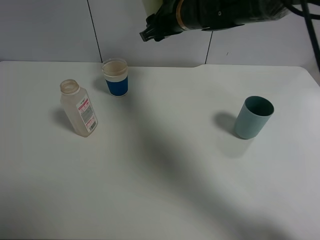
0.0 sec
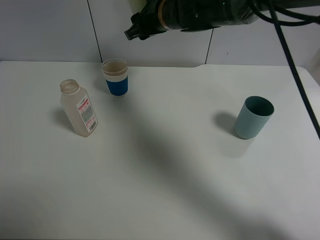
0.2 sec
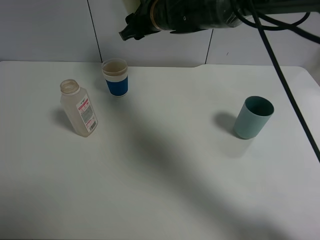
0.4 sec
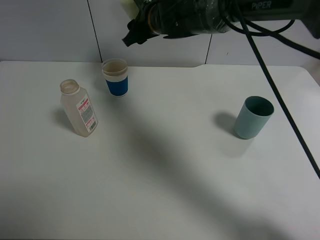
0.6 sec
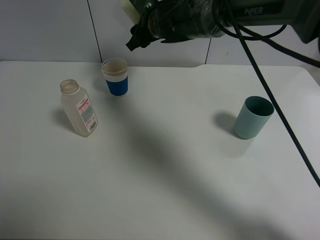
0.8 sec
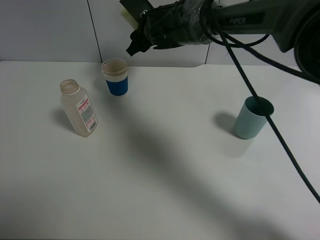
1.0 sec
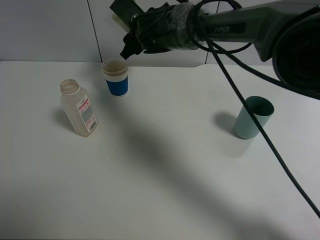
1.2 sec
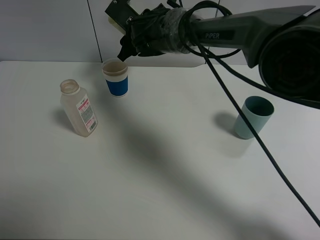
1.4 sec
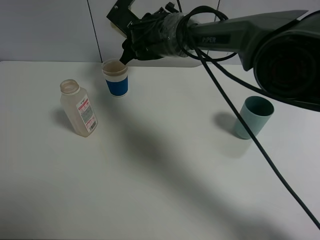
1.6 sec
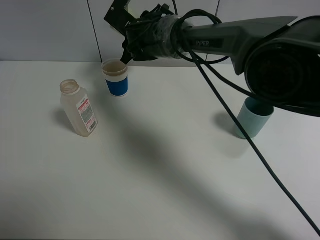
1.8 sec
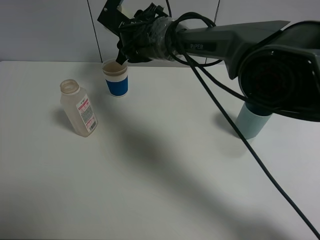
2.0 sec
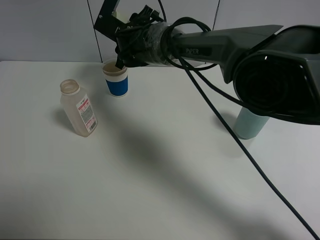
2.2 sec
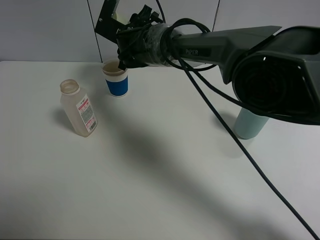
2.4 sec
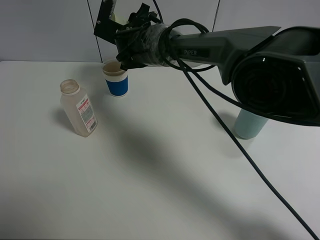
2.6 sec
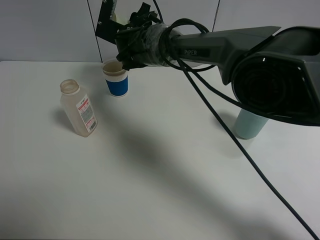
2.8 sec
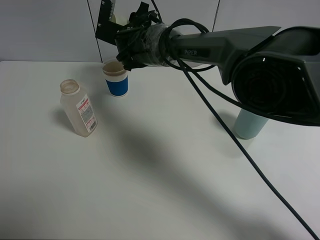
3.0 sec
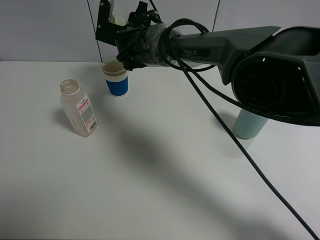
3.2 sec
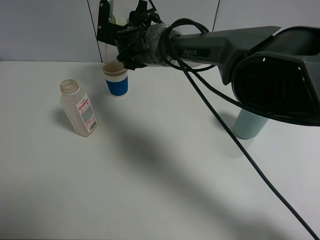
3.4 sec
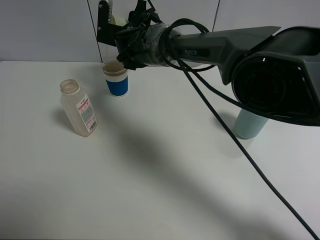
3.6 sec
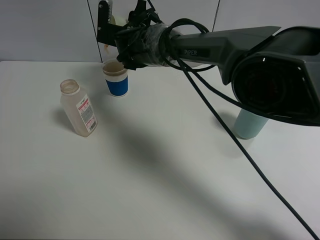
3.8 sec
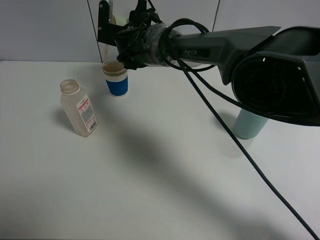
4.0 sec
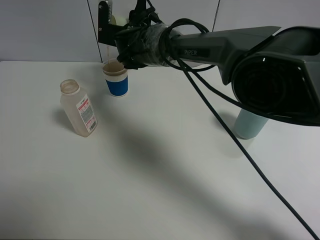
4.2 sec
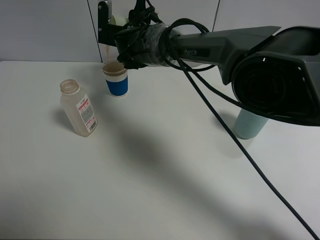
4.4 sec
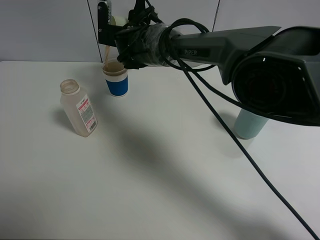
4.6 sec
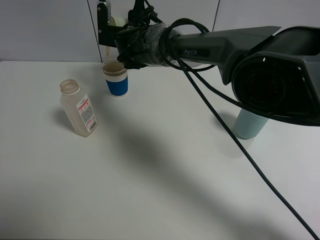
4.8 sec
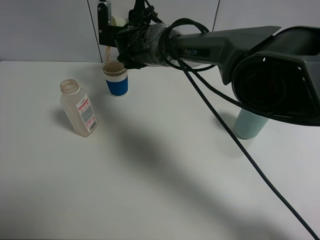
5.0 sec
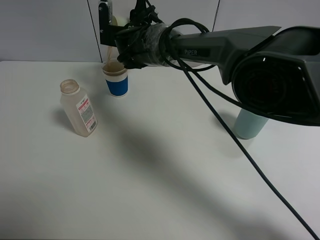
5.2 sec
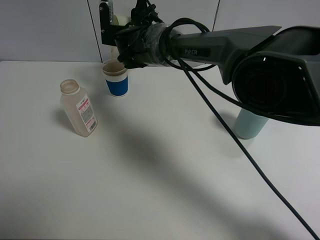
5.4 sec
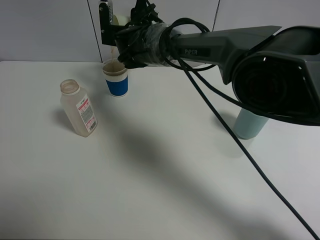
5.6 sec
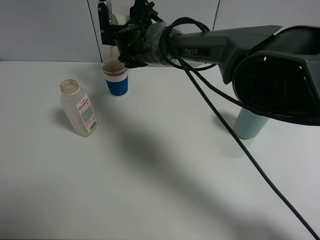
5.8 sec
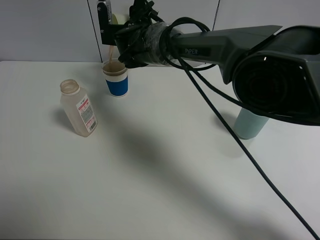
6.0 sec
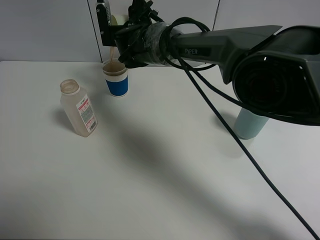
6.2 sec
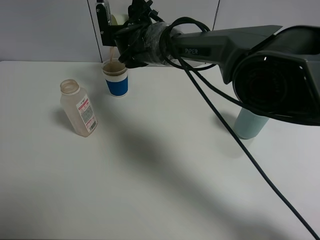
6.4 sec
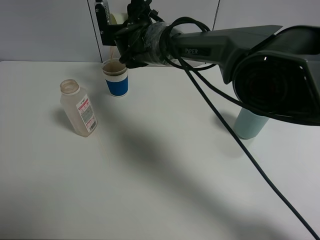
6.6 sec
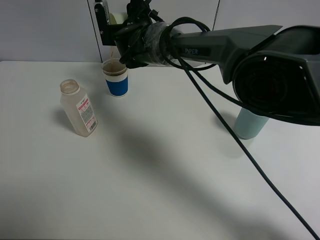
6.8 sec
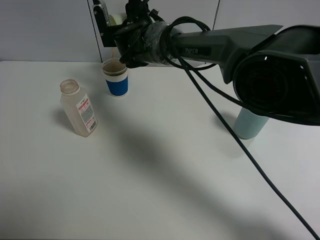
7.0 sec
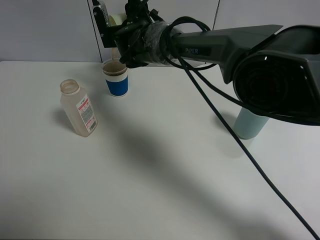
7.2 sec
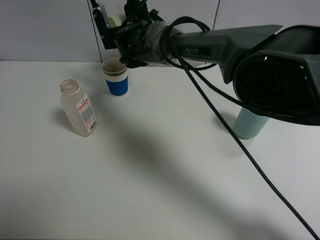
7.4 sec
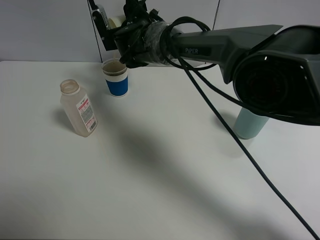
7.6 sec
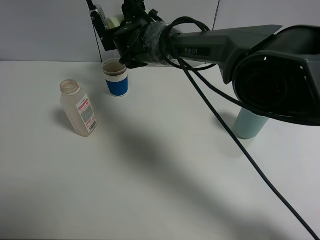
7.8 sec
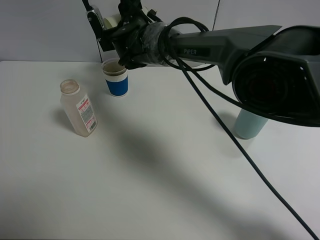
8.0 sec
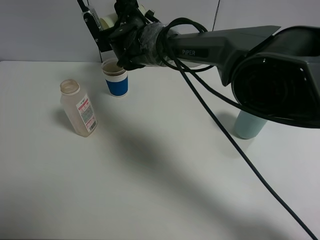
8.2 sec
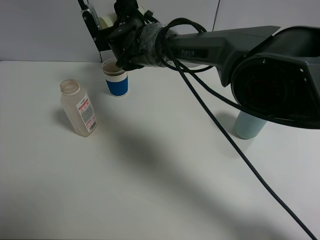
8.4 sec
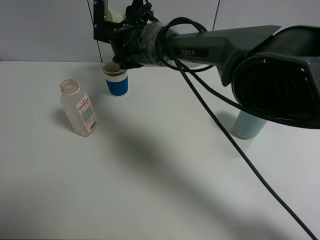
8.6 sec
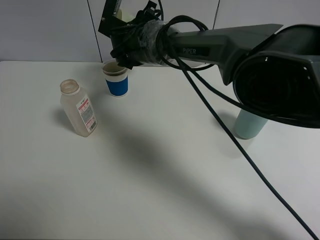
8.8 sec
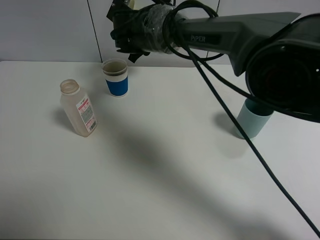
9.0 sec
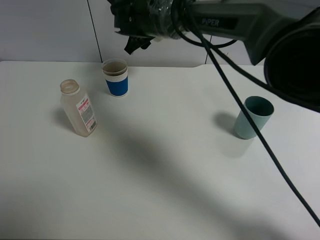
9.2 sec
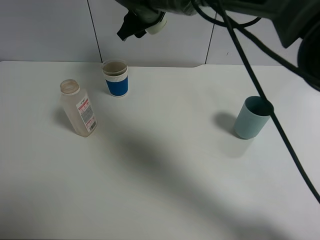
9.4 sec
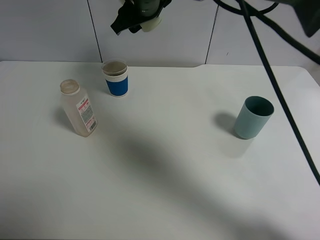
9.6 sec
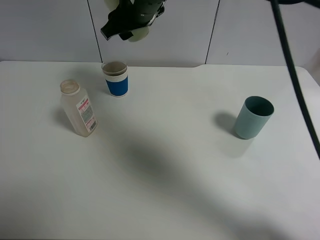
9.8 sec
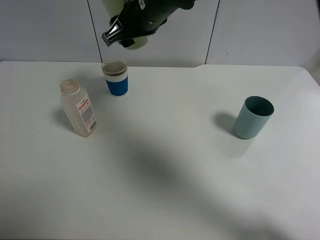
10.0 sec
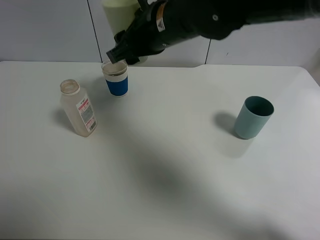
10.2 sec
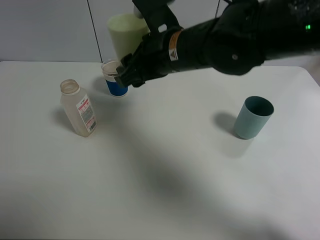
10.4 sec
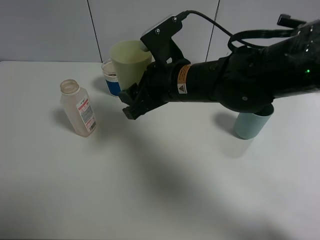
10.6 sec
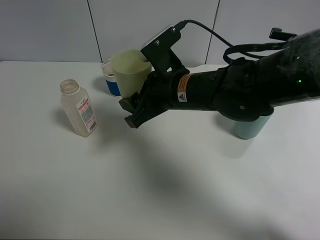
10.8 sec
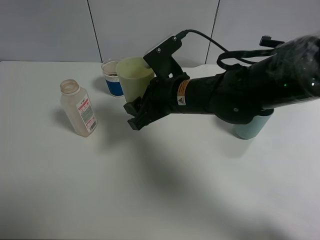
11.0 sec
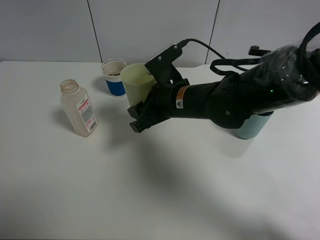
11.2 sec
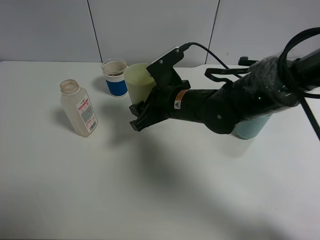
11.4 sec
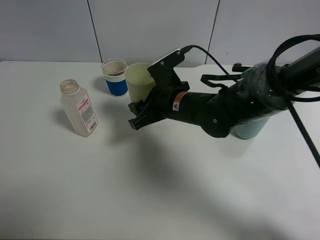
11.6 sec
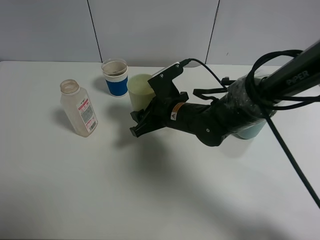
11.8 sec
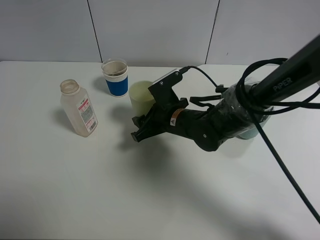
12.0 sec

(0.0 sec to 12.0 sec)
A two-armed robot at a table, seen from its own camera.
Task of the whole recording: use a clamp to hold the bottle of the drink, pour the beverage into a random cup, then clamp the cup containing the drink and pour the drink into another random cup.
Step, 0.0 sec - 8.8 sec: Pour the drink into the paper cup with right gripper.
0.0 sec - 1.6 sec: The right gripper is displaced to the left and downward by some 10 cm.
3.0 sec - 6.0 sec: The grippers move only a little.
6.0 sec - 7.6 sec: The grippers stay close to where they were, moving slightly.
9.0 sec - 10.4 sec: The right gripper travels backward and to the right by some 15 cm.
10.4 sec - 12.0 sec: The right gripper is displaced downward by about 15 cm.

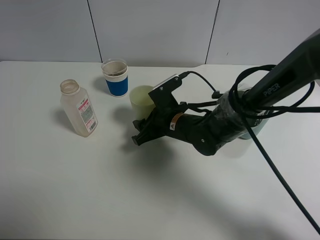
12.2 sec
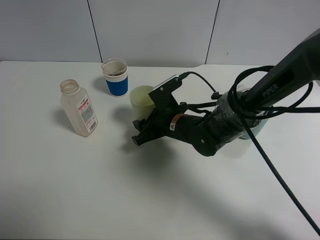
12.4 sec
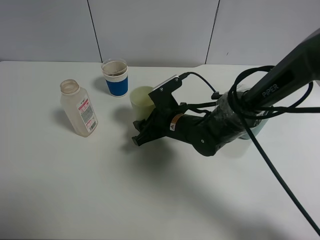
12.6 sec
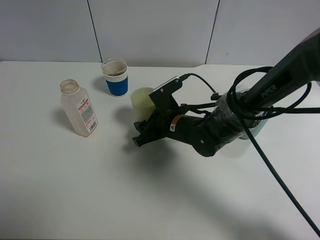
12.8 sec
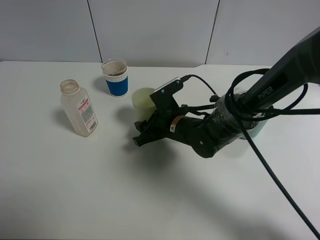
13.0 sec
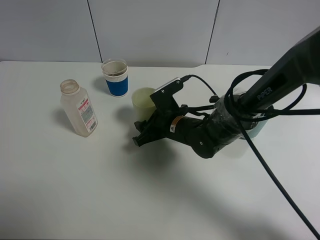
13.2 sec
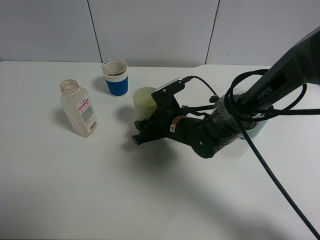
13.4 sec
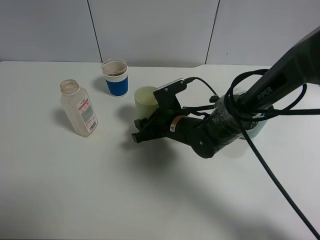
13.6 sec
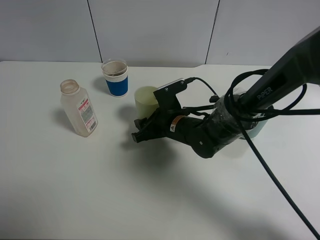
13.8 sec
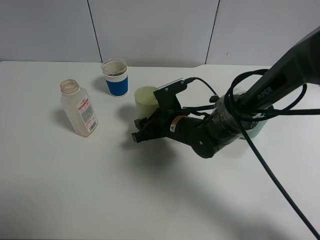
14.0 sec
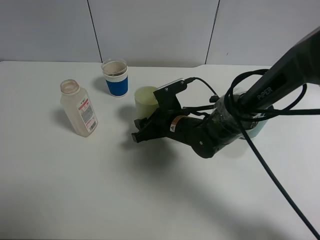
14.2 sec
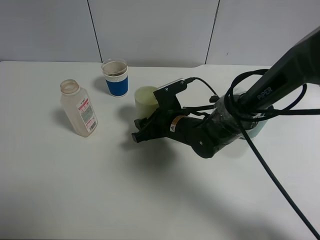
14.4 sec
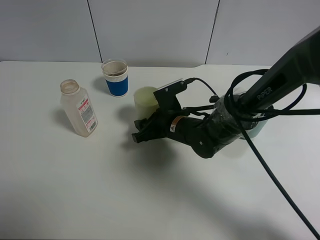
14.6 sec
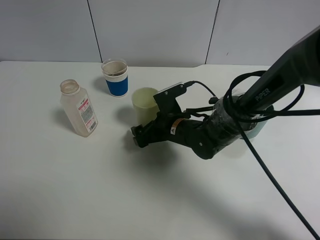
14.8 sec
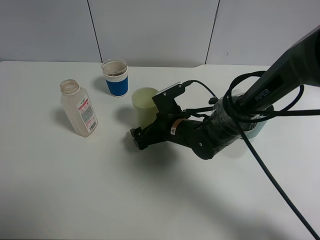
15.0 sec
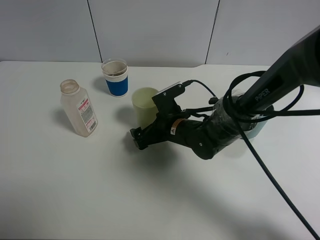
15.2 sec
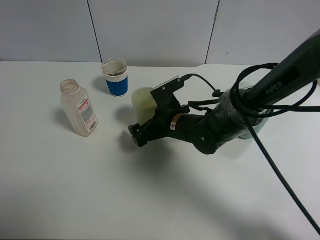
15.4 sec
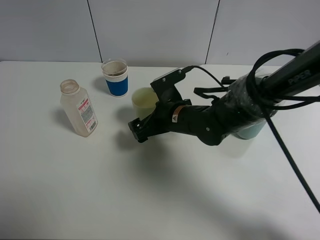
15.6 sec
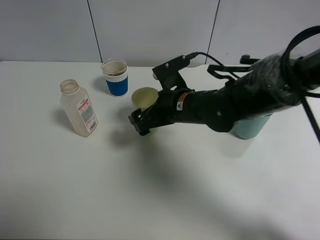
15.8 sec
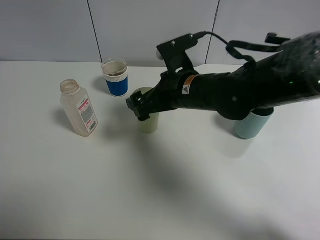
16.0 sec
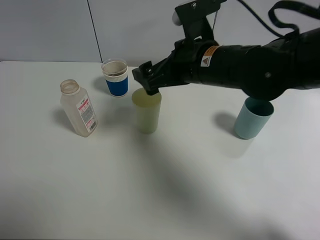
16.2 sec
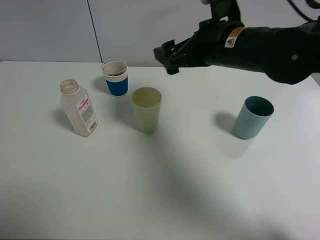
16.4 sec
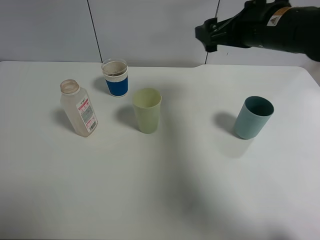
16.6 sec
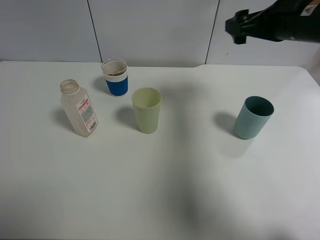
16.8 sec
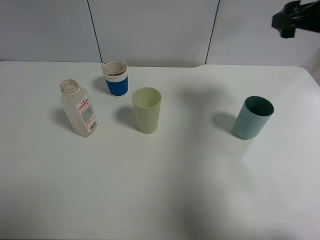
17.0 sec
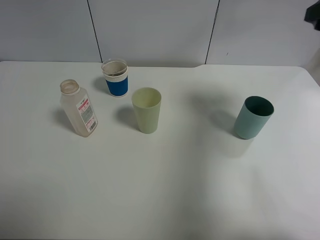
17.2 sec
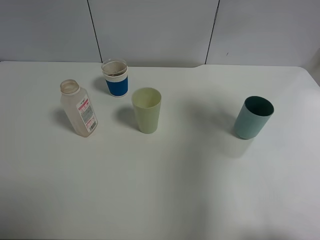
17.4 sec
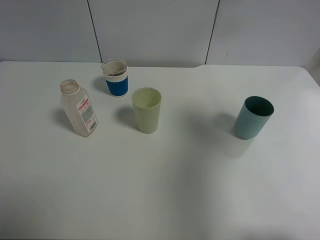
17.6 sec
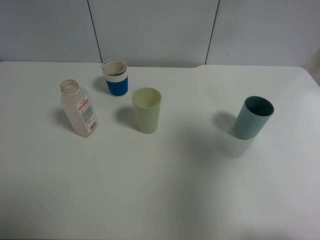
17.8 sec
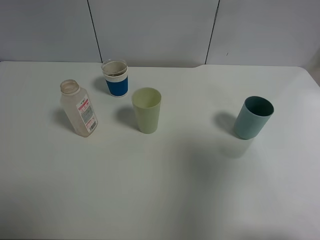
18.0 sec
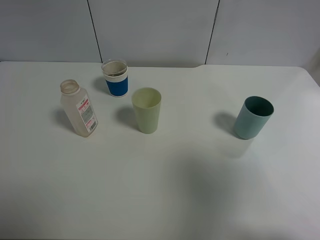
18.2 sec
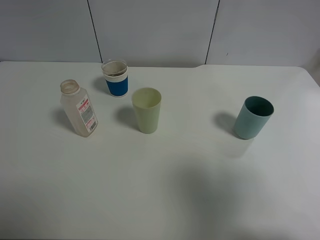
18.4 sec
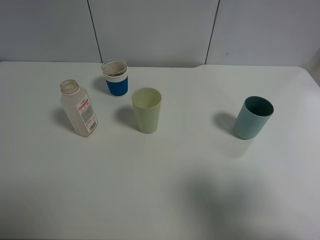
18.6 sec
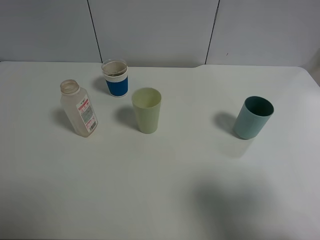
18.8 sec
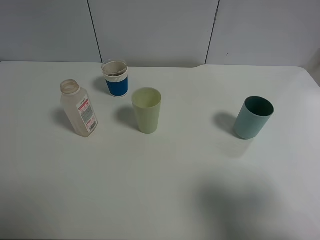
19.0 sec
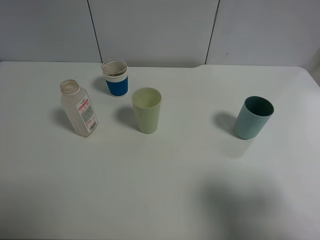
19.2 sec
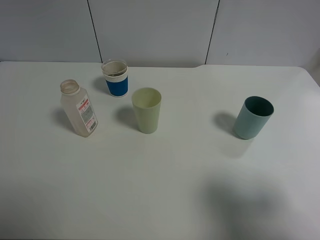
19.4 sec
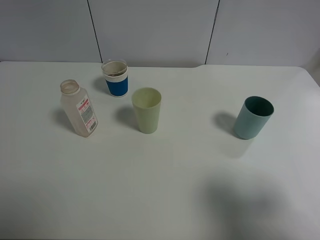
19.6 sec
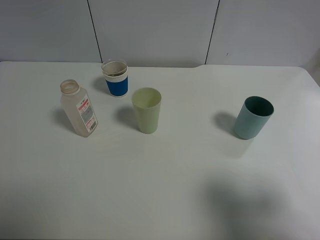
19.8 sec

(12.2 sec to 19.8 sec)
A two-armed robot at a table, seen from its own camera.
Task of the whole recording: use a clamp to hold the bottle of the drink, pour the beverage into a random cup, then clamp the cup containing the drink and pour the drink into another random cup.
Step, 12.2 sec - 14.8 sec: Place the green plastic cup on the table with right gripper.
12.2 sec - 13.8 sec: The grippers stay close to where they were, moving slightly.
13.8 sec - 15.2 sec: The right gripper opens.
15.2 sec - 16.8 sec: The right gripper shifts roughly 30 cm upward and to the right.
16.8 sec - 18.2 sec: The right gripper moves backward, approximately 30 cm.
18.2 sec - 19.8 sec: The right gripper travels downward by roughly 10 cm.

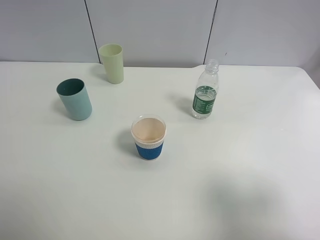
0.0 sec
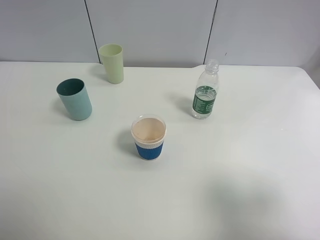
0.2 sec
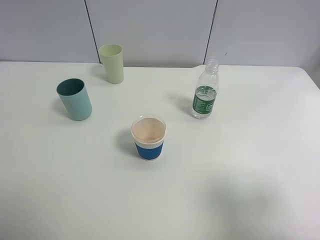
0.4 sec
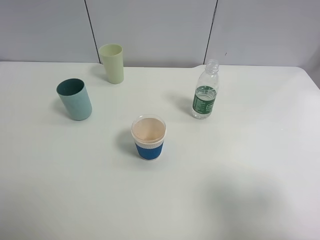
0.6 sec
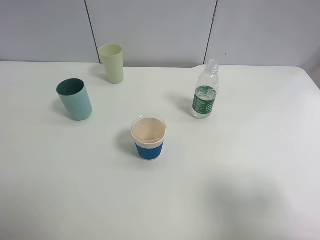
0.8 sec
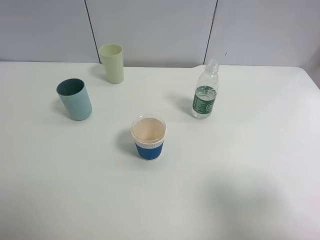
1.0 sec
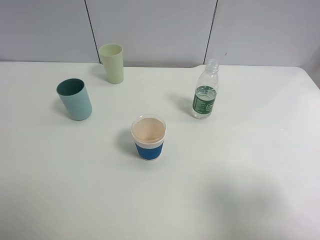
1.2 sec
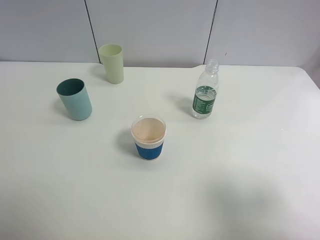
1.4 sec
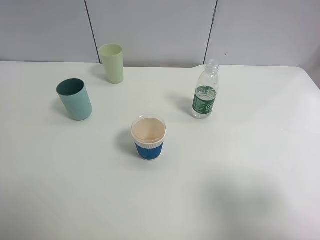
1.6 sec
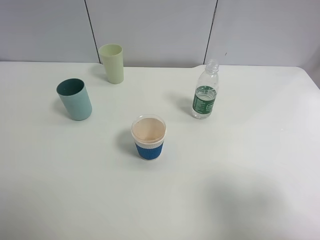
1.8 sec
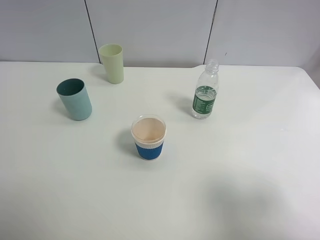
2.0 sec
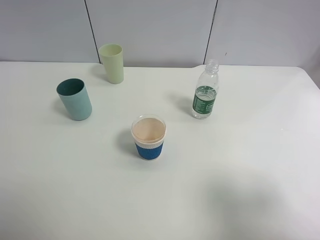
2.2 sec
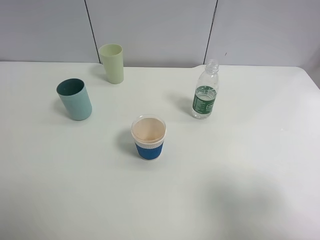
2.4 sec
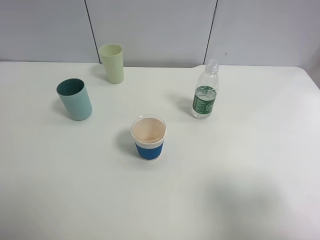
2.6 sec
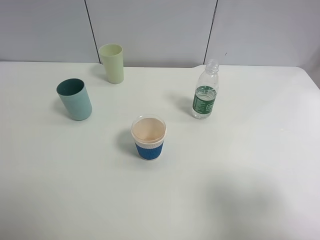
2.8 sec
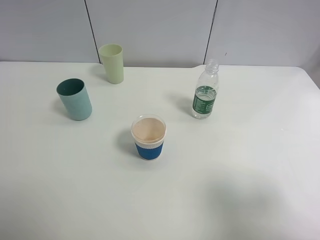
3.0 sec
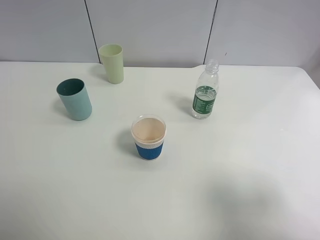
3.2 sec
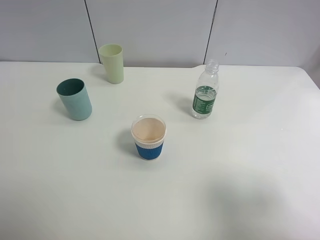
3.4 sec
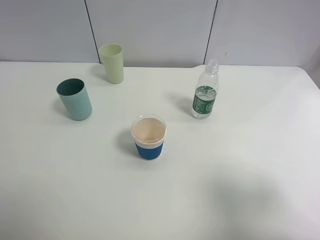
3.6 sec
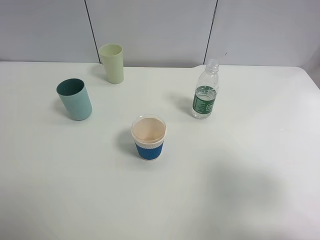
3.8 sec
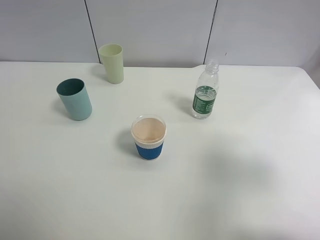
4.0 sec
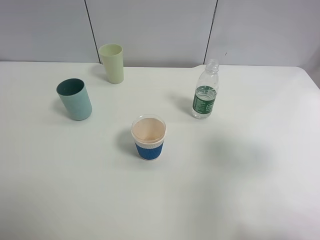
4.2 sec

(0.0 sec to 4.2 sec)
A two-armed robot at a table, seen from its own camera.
Task of the whole recording: use a clamp to hold the bottle of the drink, pour the beverage into a random cup, then clamp the cup containing the drink and pour the drink into another random cup.
0.0 sec - 2.8 sec: The two grippers keep their place.
2.8 sec - 4.2 sec: The right gripper travels forward by some 15 cm.
